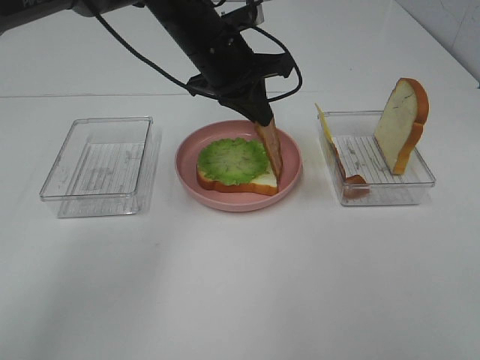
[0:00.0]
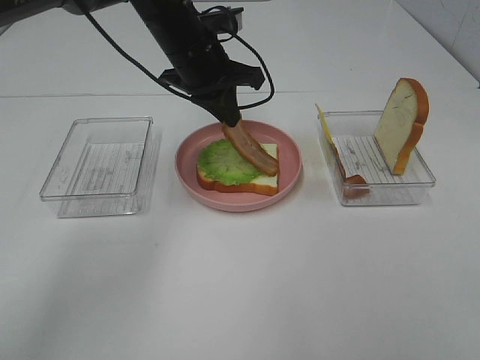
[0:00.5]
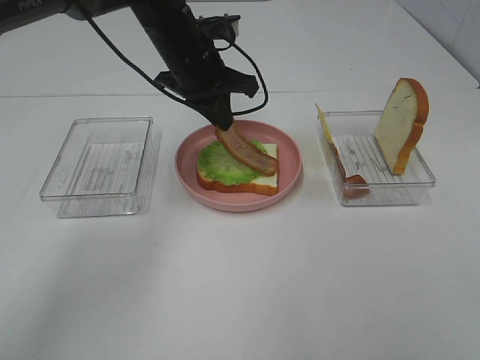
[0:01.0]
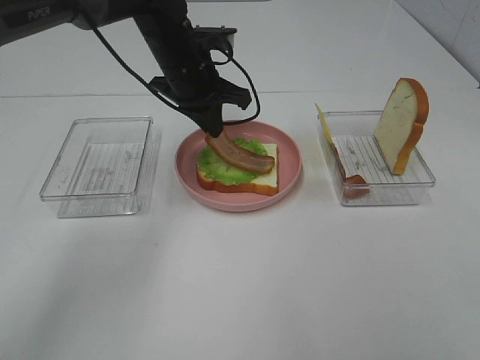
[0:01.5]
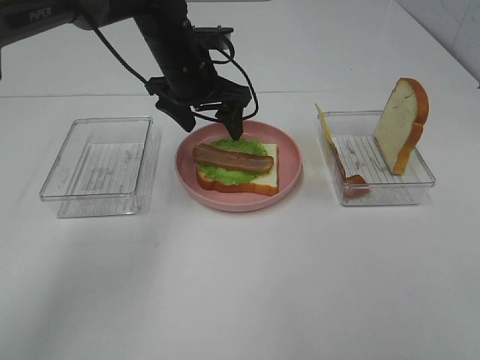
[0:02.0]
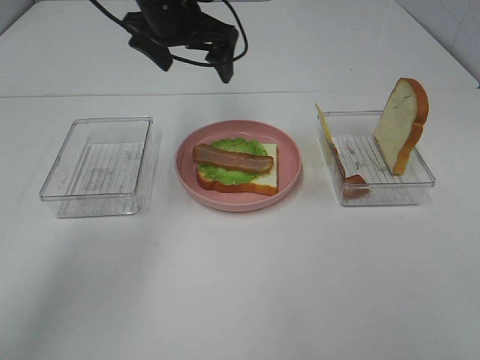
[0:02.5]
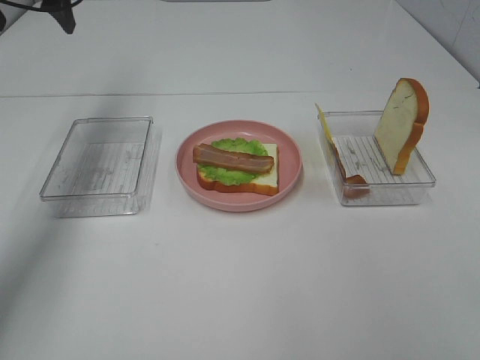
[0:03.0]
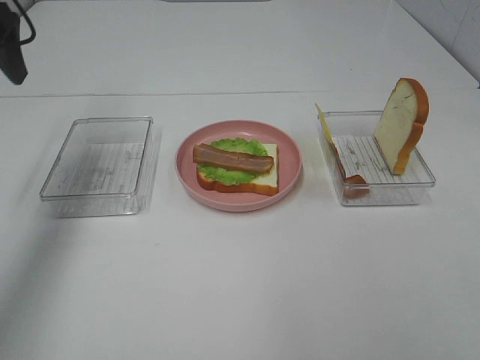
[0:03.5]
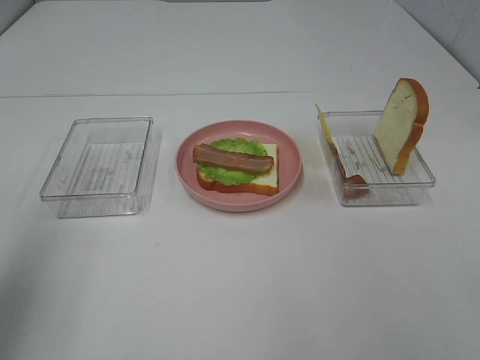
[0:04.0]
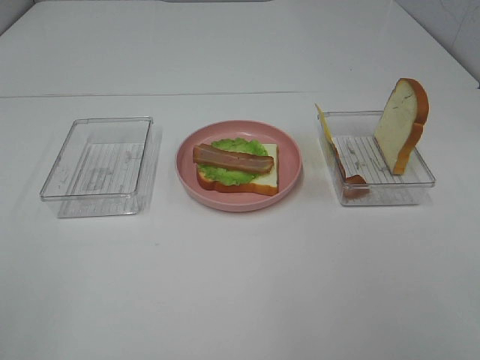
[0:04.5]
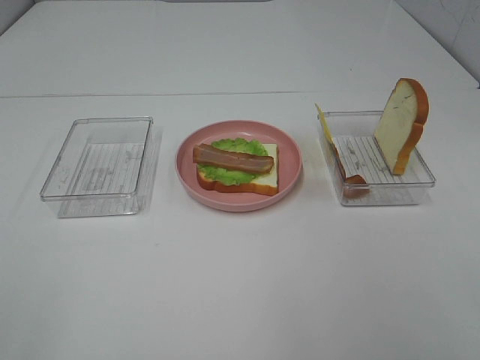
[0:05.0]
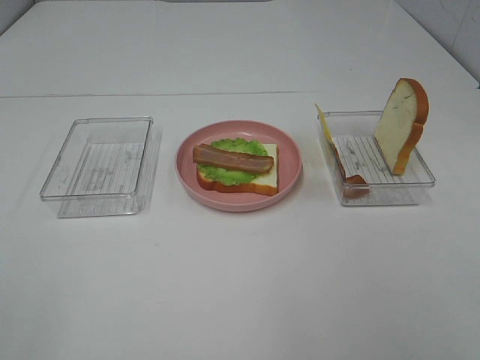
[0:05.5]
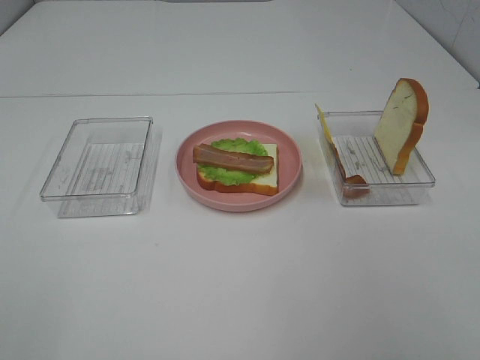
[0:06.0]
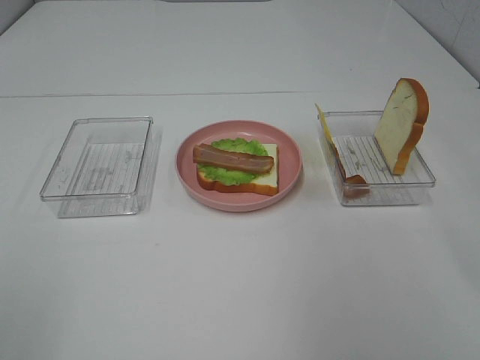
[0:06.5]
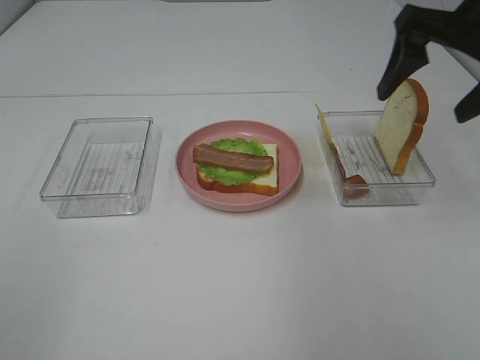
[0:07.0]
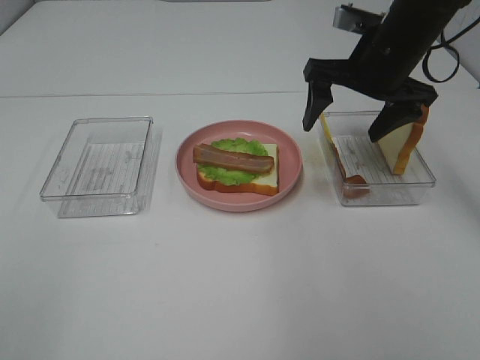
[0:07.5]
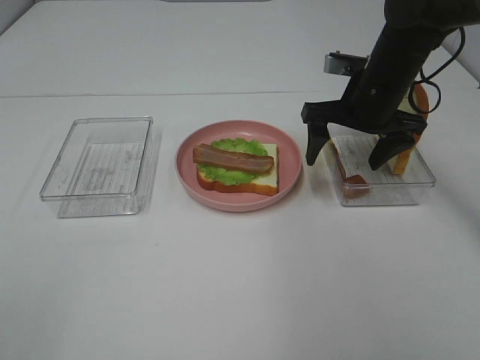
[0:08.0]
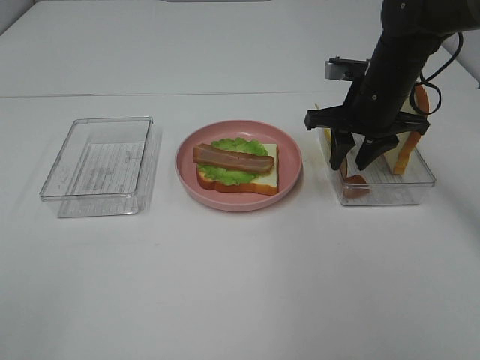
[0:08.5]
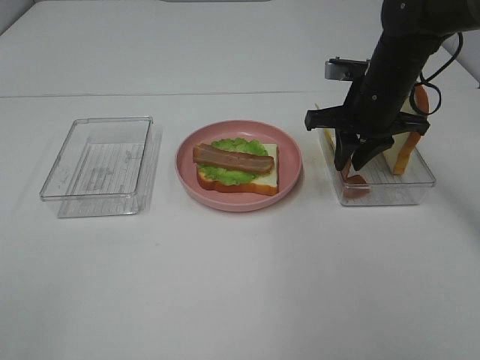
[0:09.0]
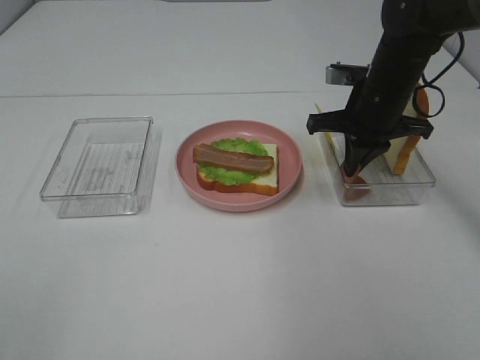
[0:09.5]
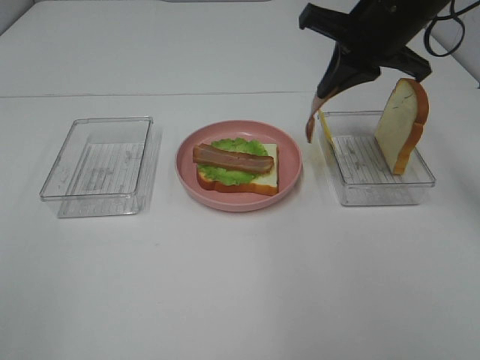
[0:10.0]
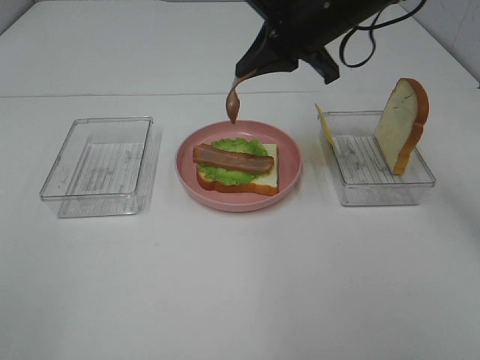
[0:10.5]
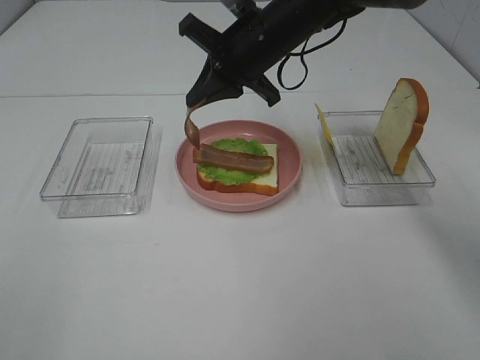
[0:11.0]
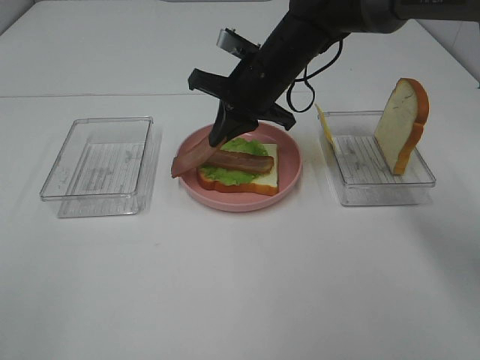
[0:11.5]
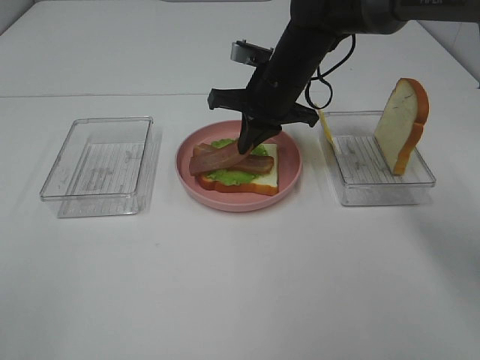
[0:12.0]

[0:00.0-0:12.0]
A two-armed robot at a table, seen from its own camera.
Task of the whole recording: Make sandwiches.
Step, 0:02.0 to 0:09.0: Right hand:grab the bacon.
0:00.0 to 0:02.0: The left gripper opens.
0:02.0 to 0:04.0: The left gripper travels backward, to the left and upward by approximately 40 cm.
0:04.0 to 0:06.0: The left gripper is displaced backward by some 15 cm.
0:06.0 to 0:08.0: The right gripper goes some 35 cm forward.
0:08.0 to 0:10.0: The right gripper heads upward, covering some 10 cm, and closes its fingers.
0:10.0 to 0:12.0: The right gripper goes some 15 cm downward and to the left.

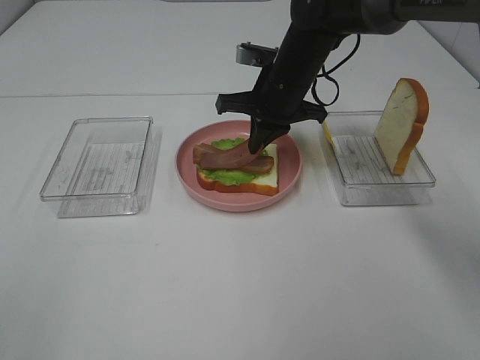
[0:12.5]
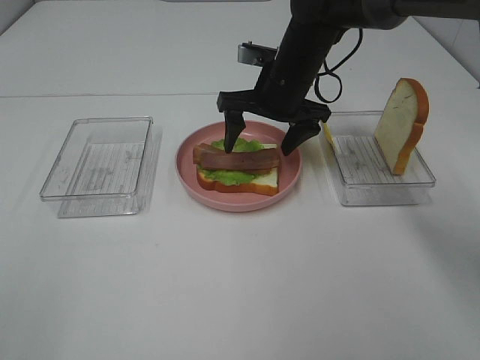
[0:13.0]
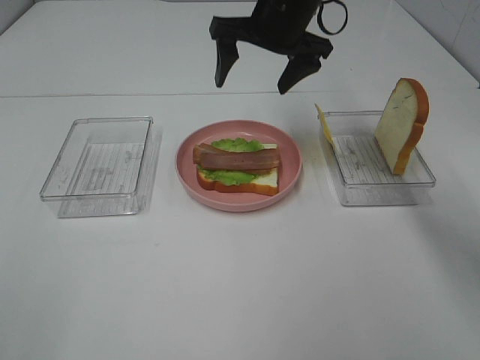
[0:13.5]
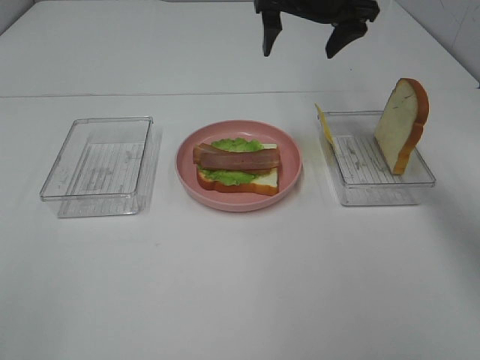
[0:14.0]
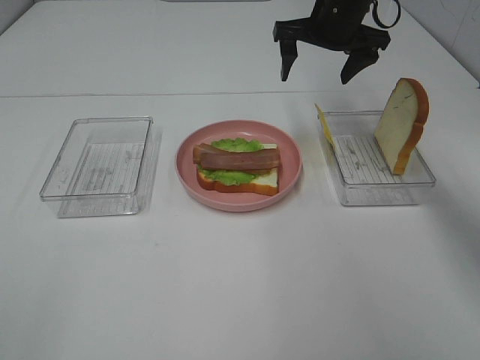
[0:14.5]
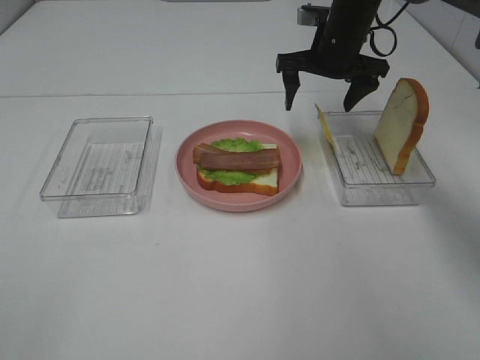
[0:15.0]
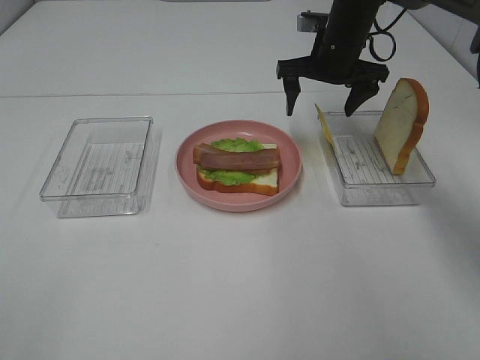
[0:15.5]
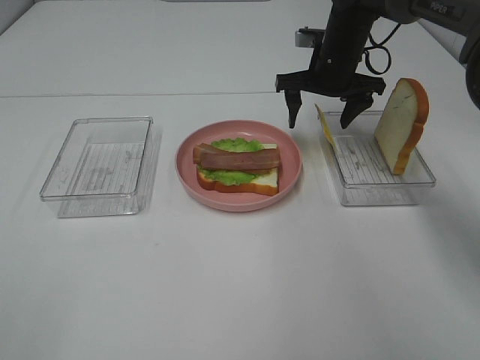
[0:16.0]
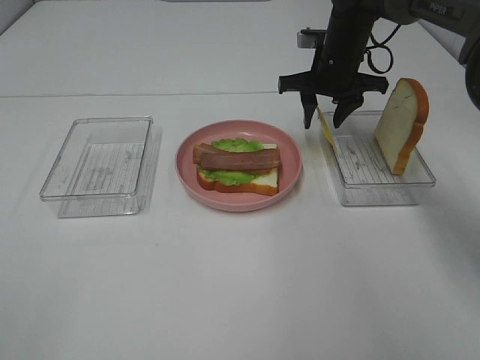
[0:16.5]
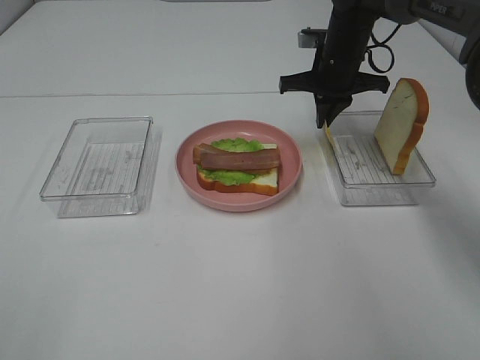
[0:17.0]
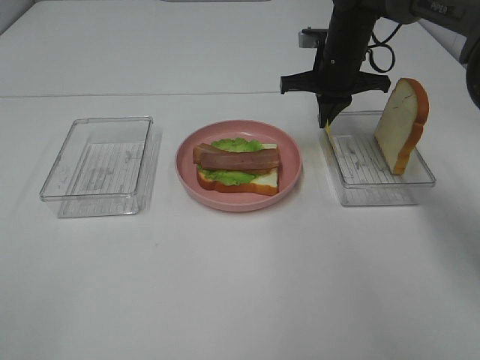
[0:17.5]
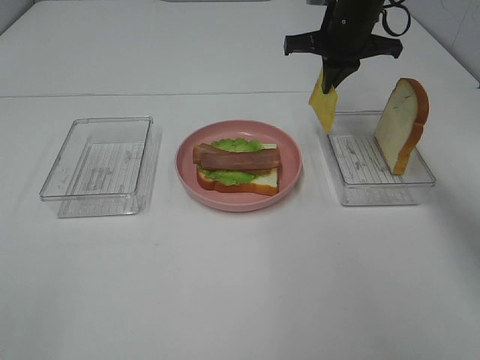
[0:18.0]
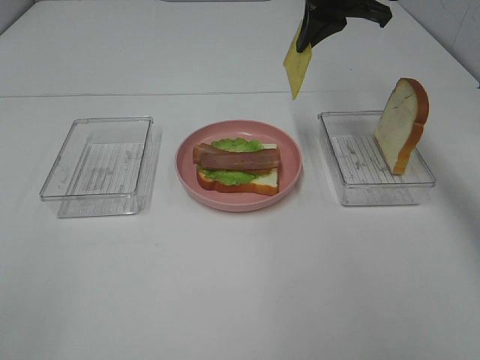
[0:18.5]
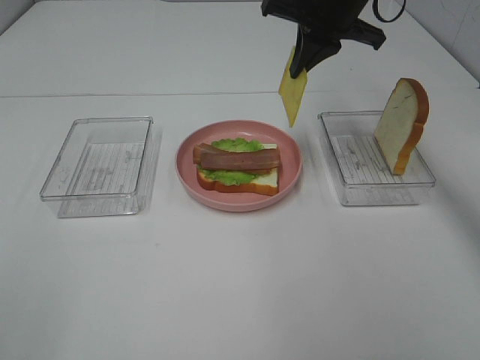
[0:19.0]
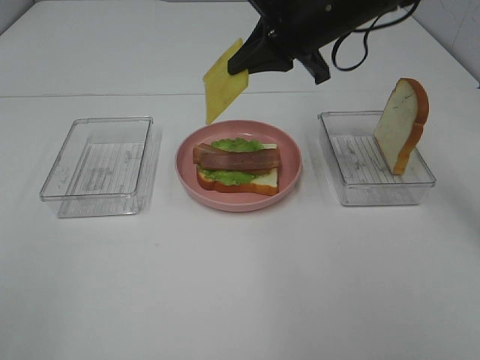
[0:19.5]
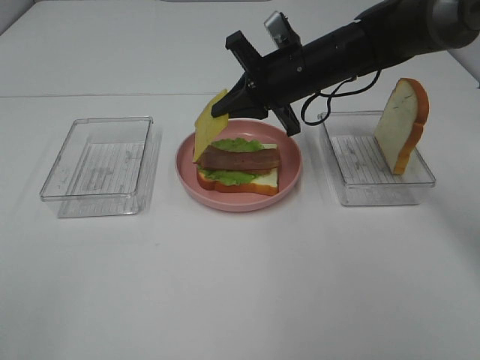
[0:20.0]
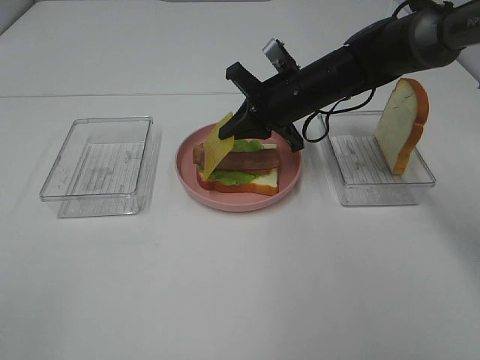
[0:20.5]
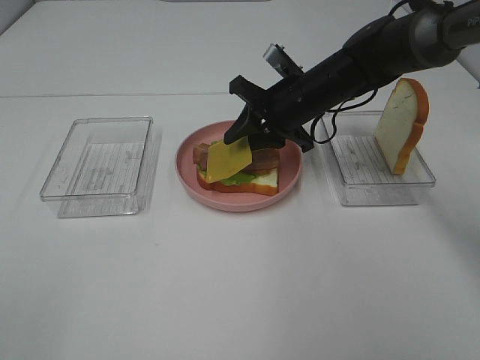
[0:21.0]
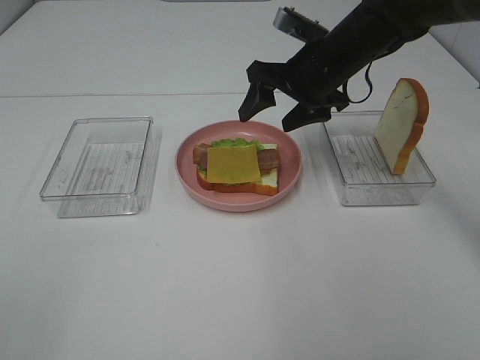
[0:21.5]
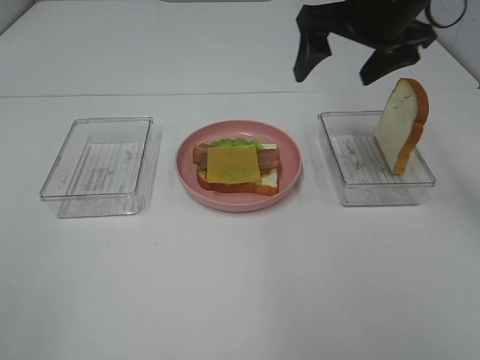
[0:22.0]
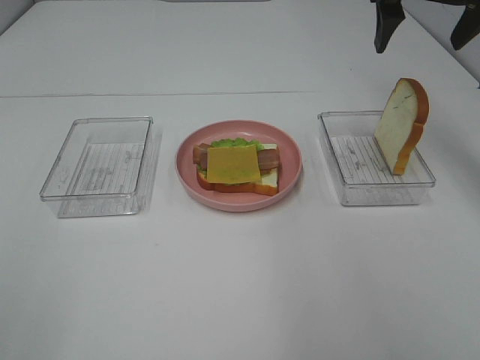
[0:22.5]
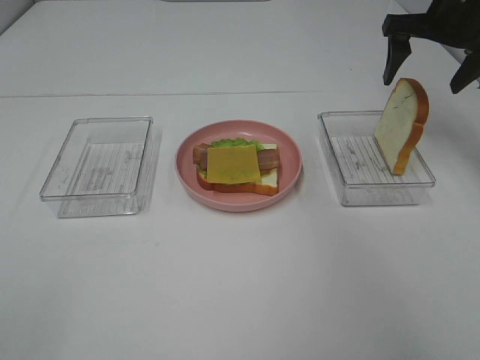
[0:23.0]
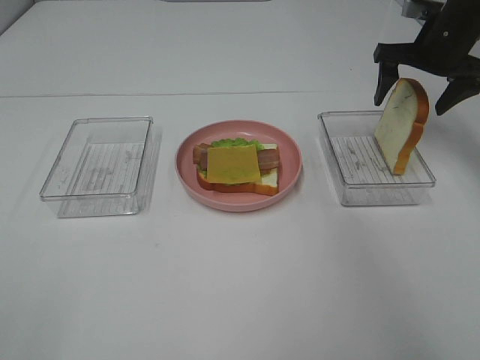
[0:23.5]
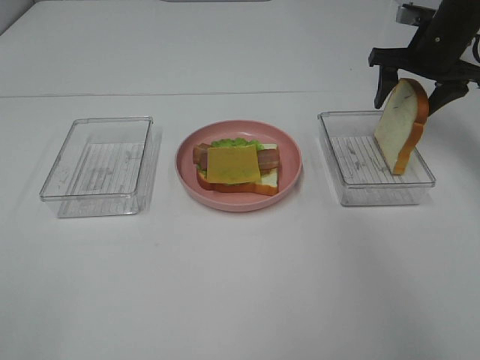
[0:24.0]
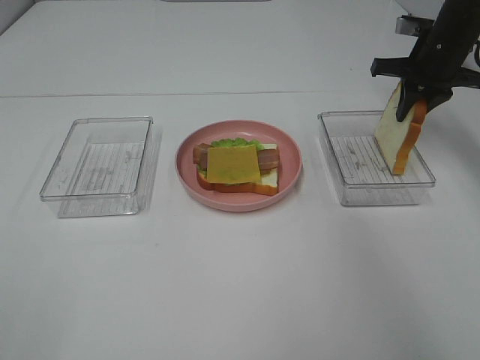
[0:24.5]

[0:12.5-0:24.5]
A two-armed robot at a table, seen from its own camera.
Task of the whole recording: Make sandwiches.
Step, 0:12.5 to 0:14.5: Right hand:place bacon on bacon.
Step, 0:15.0 to 0:17.0: Right hand:grab the cheese slice.
Step, 0:17.5 to 0:21.5: Right hand:place the cheese slice on top of the bacon.
0:12.5 to 0:14.5: The right gripper shifts about 10 cm to the right, upward and forward, and opens its fingers.
0:14.5 to 0:16.5: The right gripper shifts about 5 cm downward, and closes.
0:16.5 to 0:18.5: The right gripper heads upward, covering about 15 cm, and closes its fingers.
0:18.5 to 0:20.5: The right gripper travels downward by about 15 cm.
0:20.5 to 0:22.5: The right gripper heads upward and to the right, covering about 25 cm, and opens.
0:22.5 to 0:24.5: The right gripper shifts some 15 cm downward, forward and to the right, and closes.

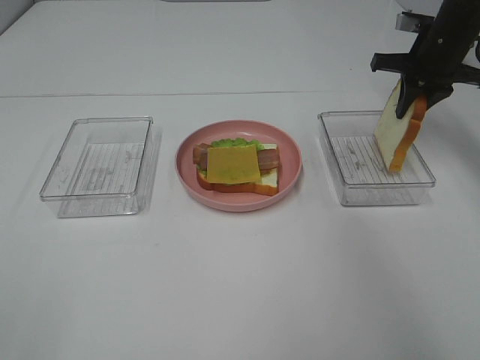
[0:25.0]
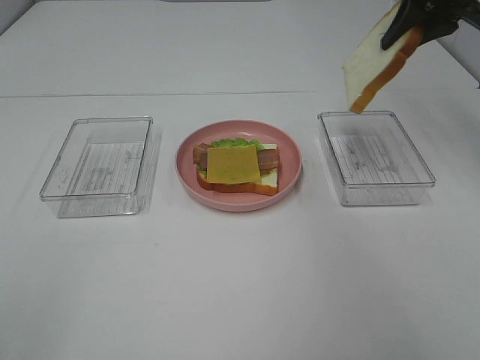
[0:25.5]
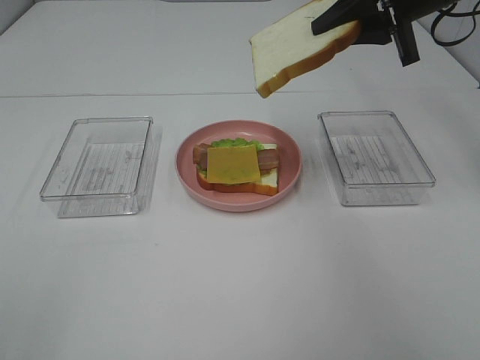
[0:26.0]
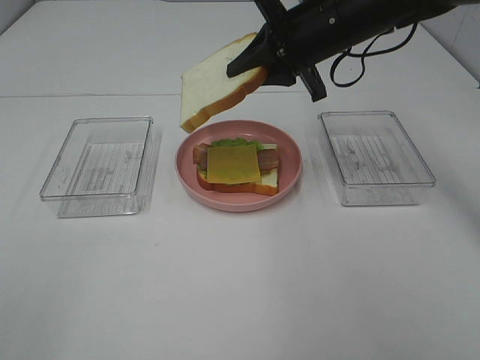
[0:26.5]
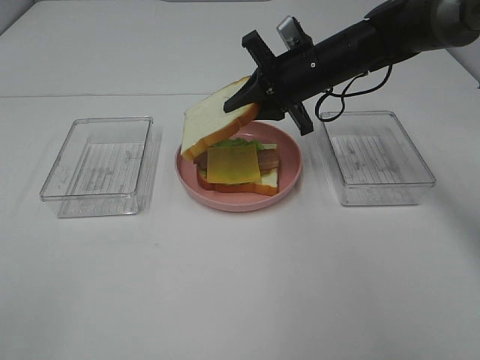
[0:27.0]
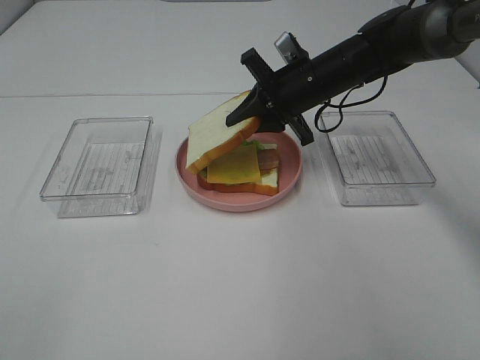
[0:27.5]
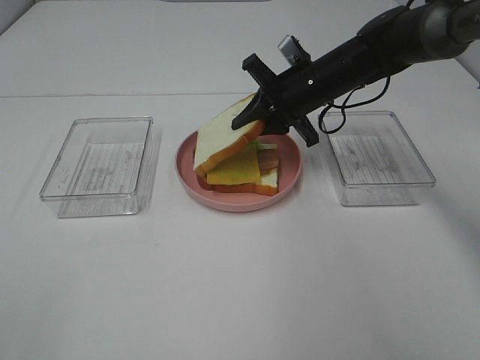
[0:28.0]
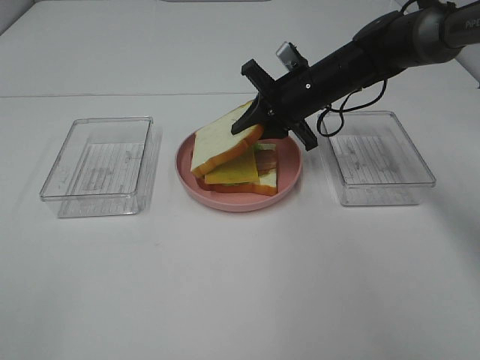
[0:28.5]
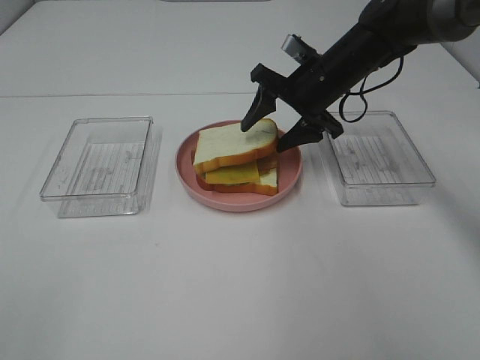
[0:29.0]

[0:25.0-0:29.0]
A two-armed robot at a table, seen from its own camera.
Task of the whole recording: Make sandwiches.
0:25.0 to 0:27.0: The right gripper is displaced to the left by some 15 cm.
0:27.0 to 0:29.0: The right gripper opens.
